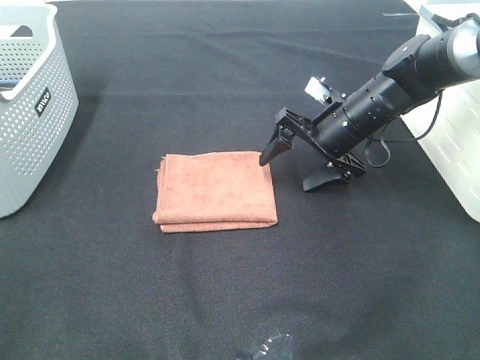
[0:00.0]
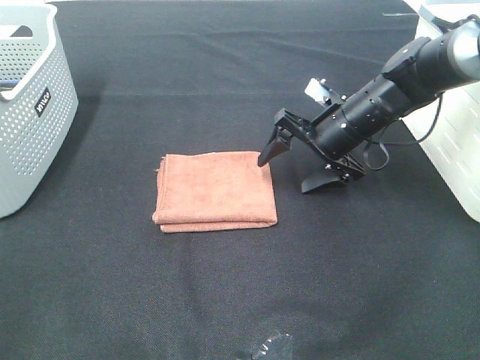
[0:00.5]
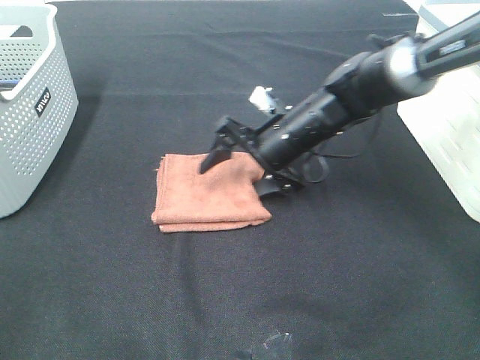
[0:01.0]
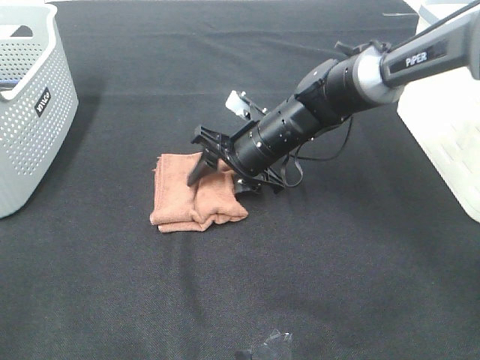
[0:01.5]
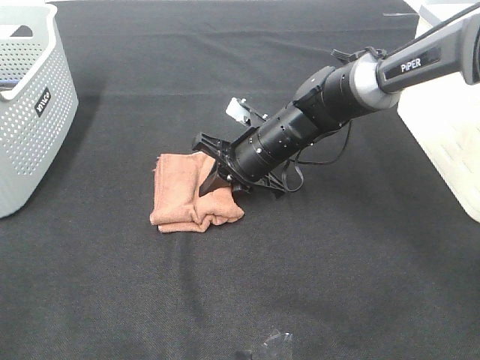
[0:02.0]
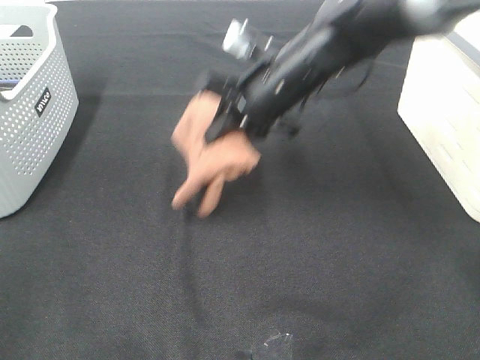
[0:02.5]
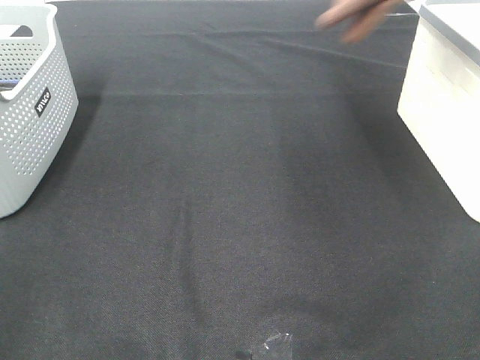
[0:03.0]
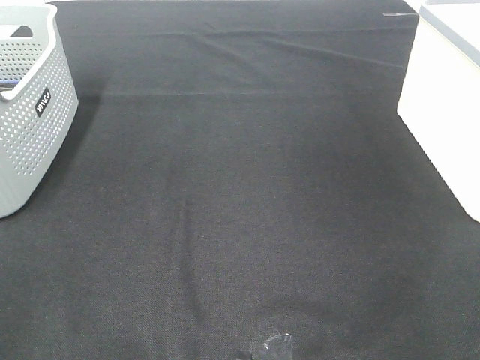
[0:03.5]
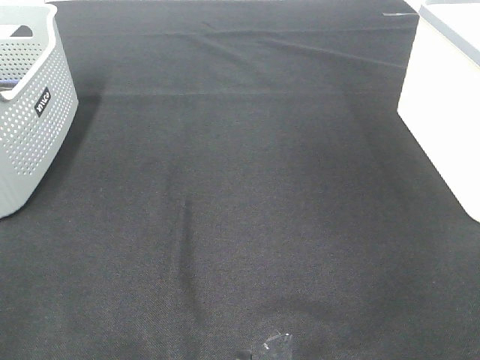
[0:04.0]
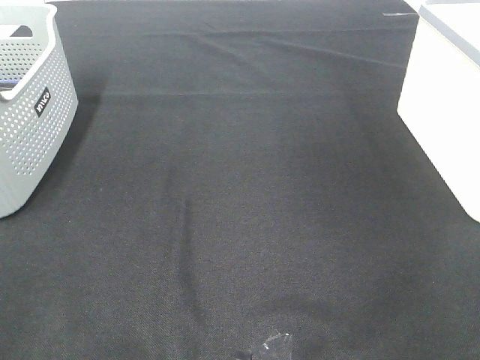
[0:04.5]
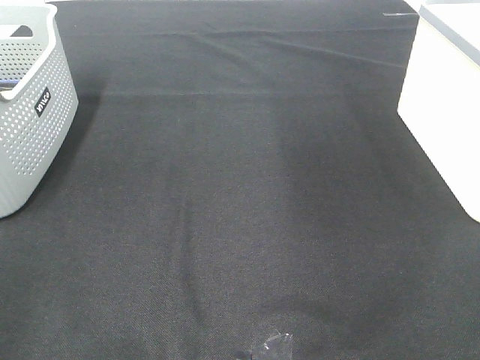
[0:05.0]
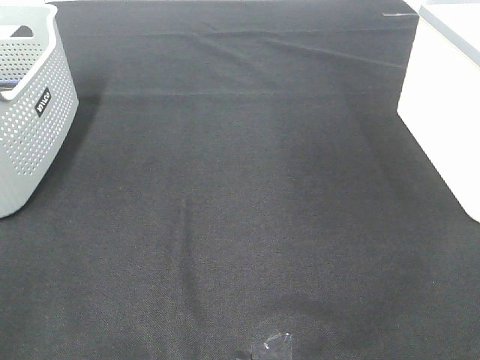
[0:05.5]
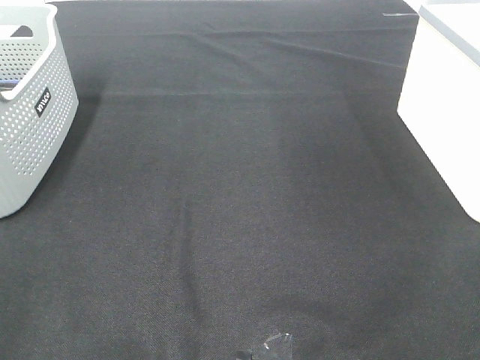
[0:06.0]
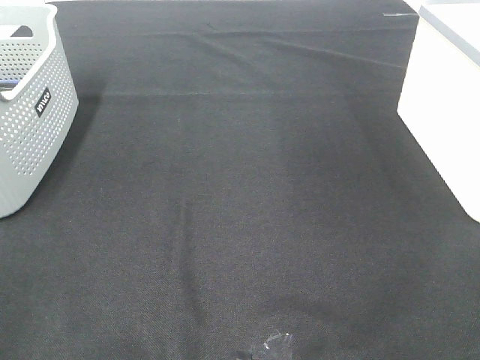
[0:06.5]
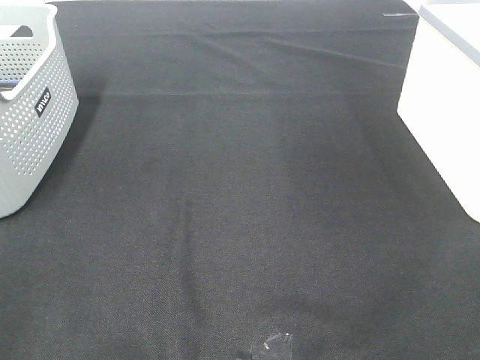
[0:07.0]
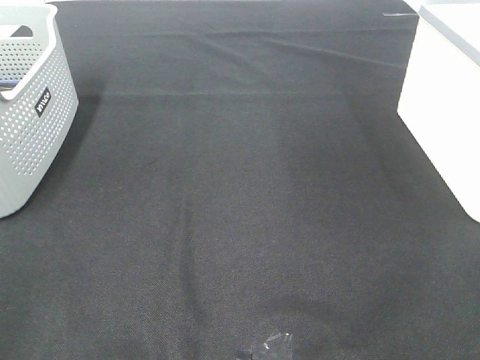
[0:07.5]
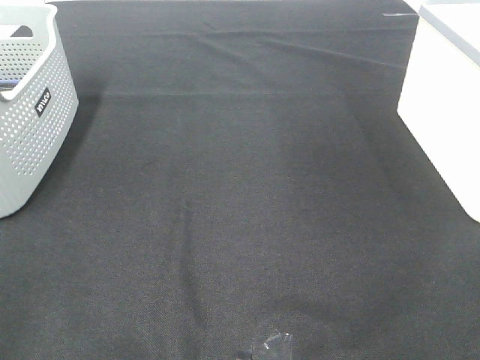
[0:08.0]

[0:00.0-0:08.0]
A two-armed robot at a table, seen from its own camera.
Step, 0:02.0 to 0:04.0: Right hand: place the brown towel in right basket.
0:00.0 to 0:02.0: The right gripper is displaced to the left by roughly 10 cm, and closes up.
0:02.0 to 0:04.0: The right gripper heads to the right and upward, covering some 50 cm.
0:06.0 to 0:08.0: Both grippers stay put.

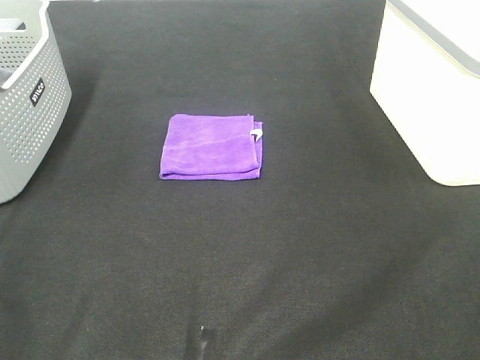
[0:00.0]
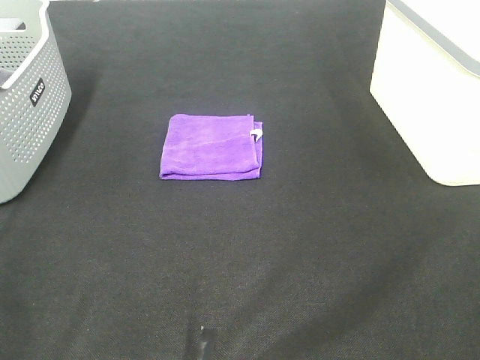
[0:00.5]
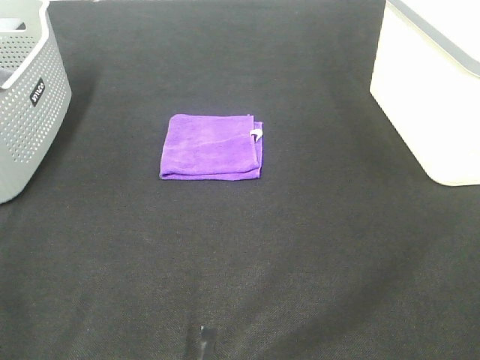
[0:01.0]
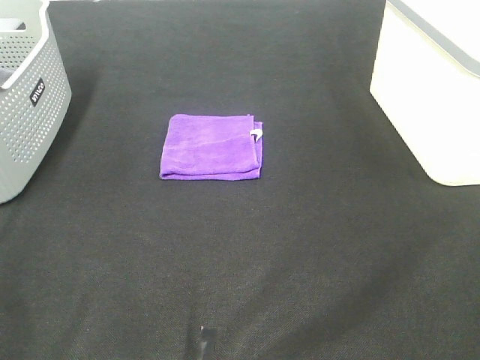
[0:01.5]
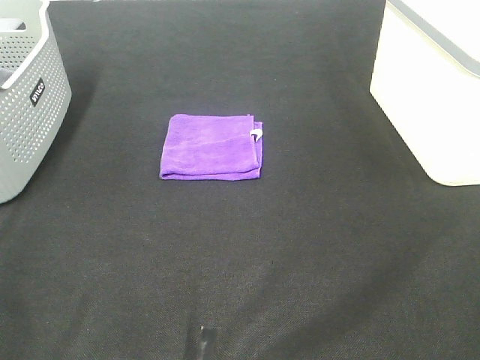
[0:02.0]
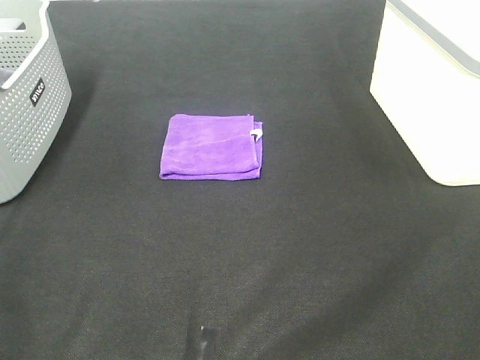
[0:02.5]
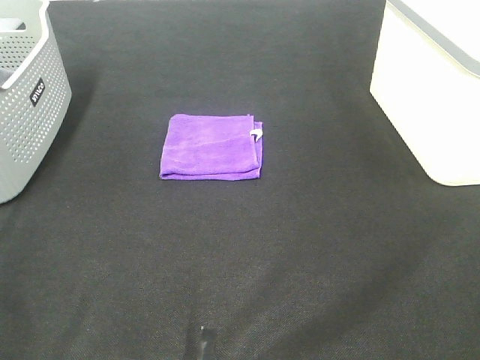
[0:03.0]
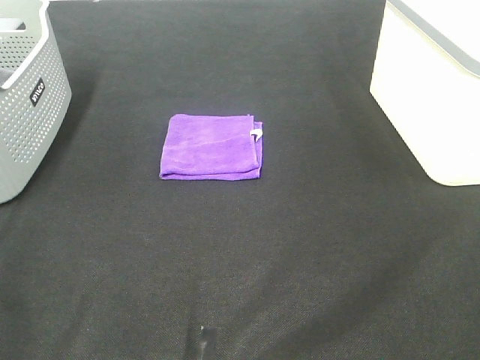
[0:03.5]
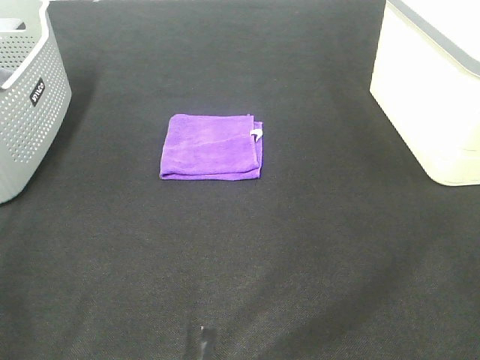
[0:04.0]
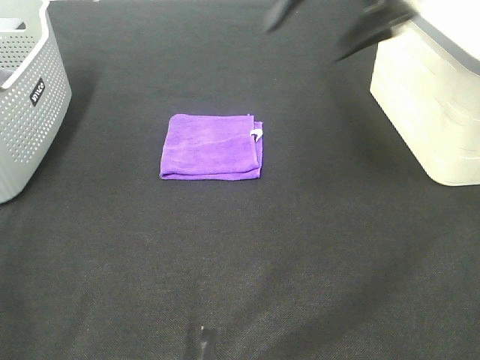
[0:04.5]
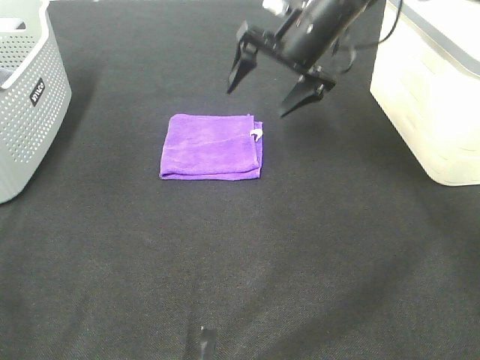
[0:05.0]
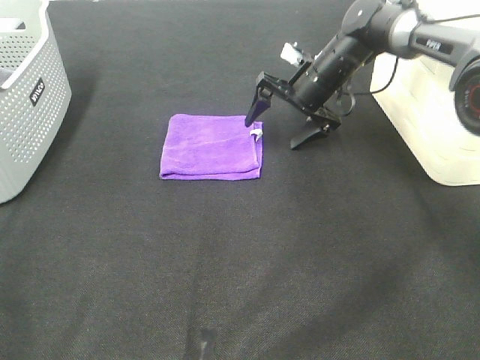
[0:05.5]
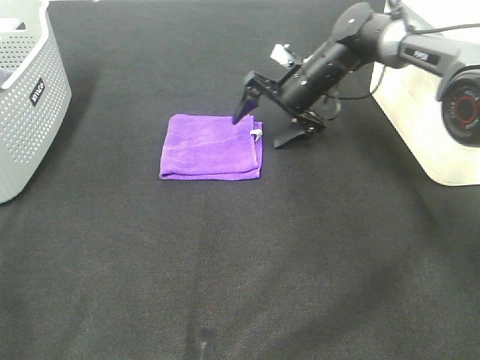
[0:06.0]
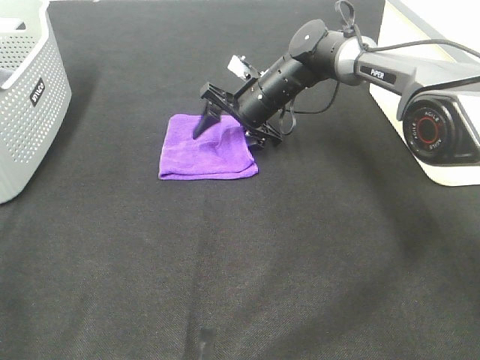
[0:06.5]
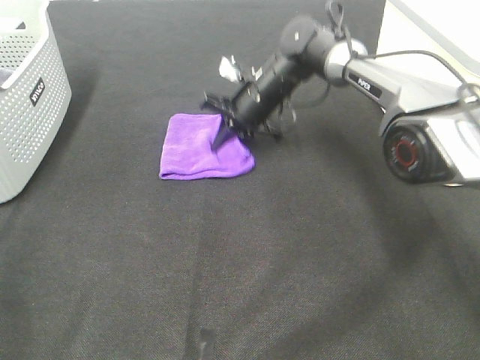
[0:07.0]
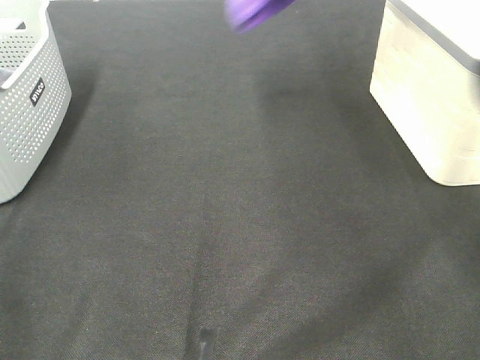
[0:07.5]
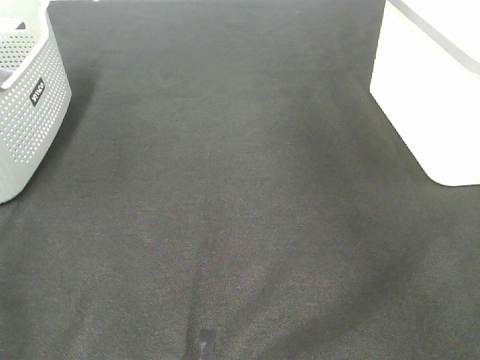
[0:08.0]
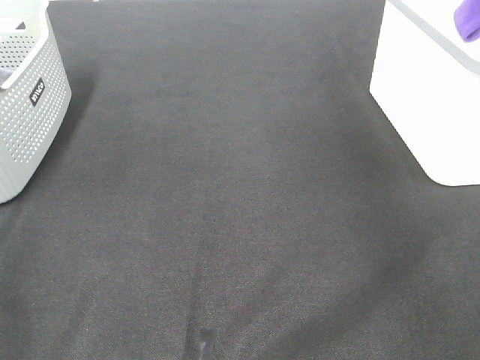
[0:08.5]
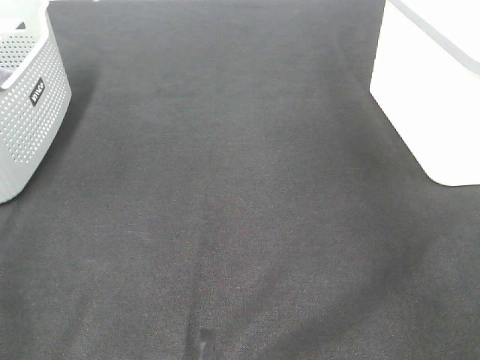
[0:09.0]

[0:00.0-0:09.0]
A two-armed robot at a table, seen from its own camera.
Step, 0:00.0 to 0:06.5: Right hand: grab the folded purple towel.
Step, 0:07.0 to 0:08.5: Right hand: place the purple towel in right basket.
0:00.0 to 0:02.0: Neither gripper changes place.
0:02.0 to 0:04.5: The right gripper goes about 40 cm forward.
0:04.5 to 0:07.0: The right gripper shifts roughly 25 cm downward, forward and to the left, and closes.
0:07.0 to 0:09.0: The right gripper travels to the right and upward by roughly 40 cm, and opens its fingers.

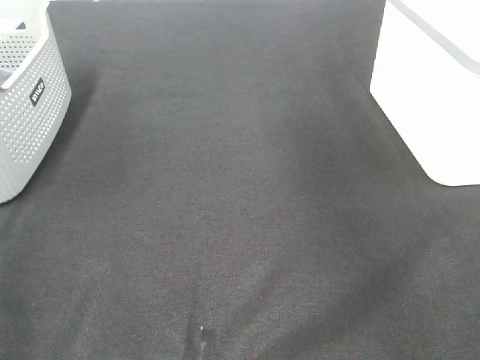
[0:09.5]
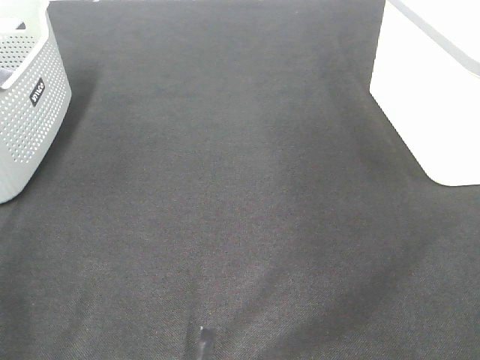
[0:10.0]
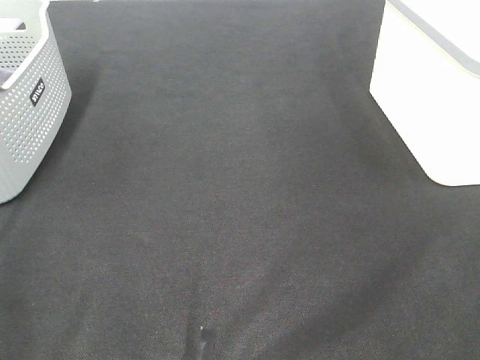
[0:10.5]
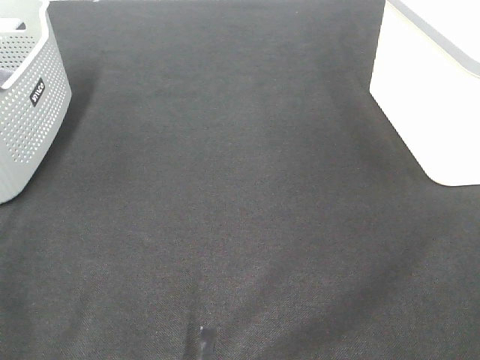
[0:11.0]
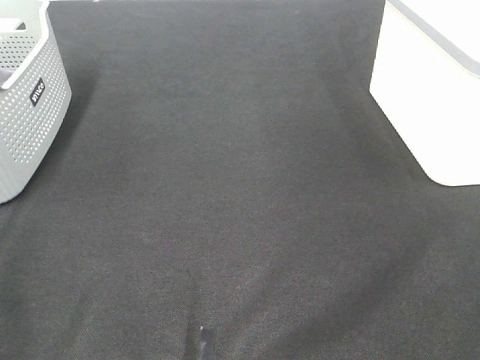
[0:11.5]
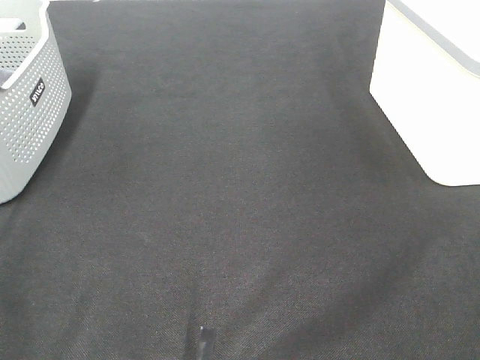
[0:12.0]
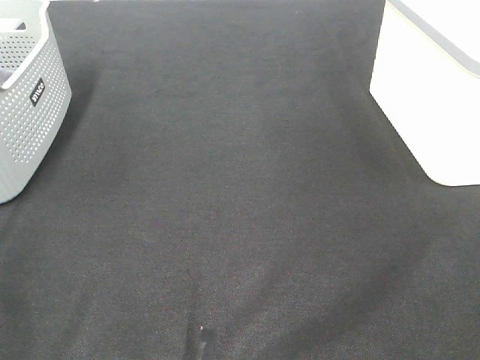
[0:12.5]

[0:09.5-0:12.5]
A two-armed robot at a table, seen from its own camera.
0:11.0 to 0:12.5: The two grippers keep their place.

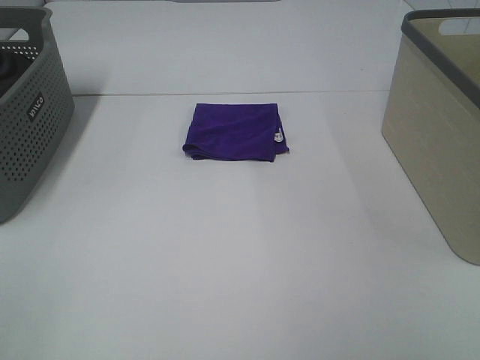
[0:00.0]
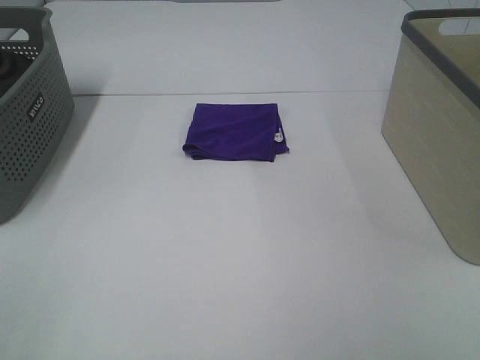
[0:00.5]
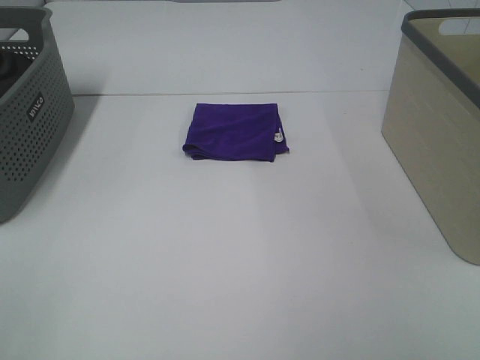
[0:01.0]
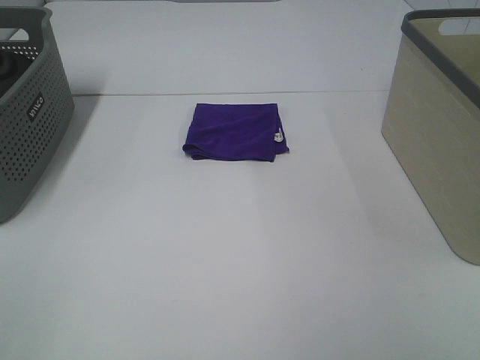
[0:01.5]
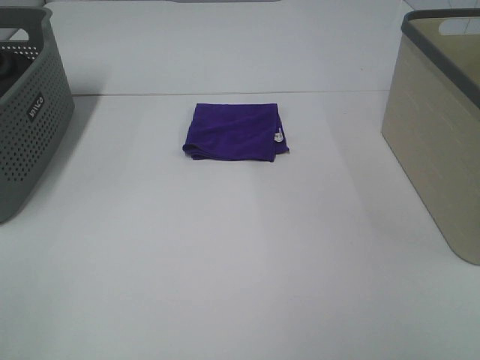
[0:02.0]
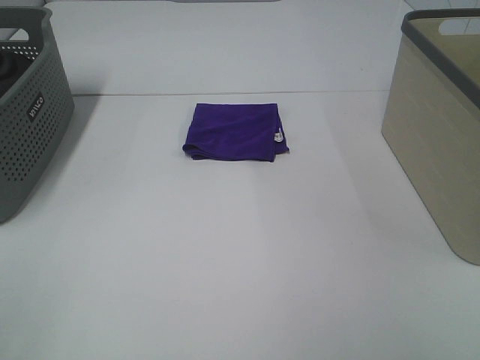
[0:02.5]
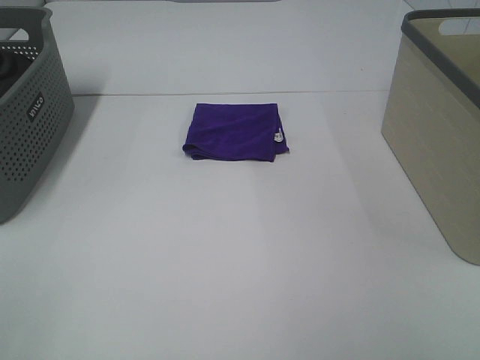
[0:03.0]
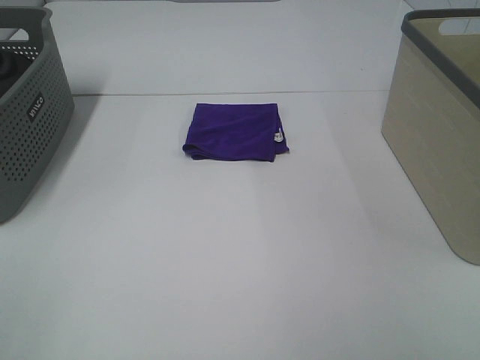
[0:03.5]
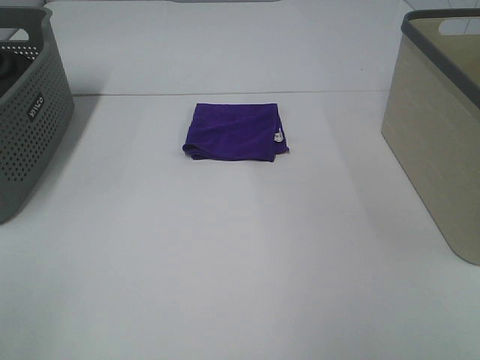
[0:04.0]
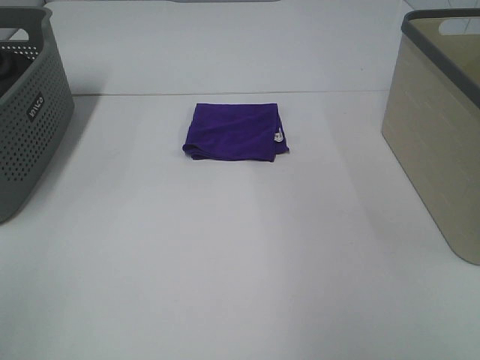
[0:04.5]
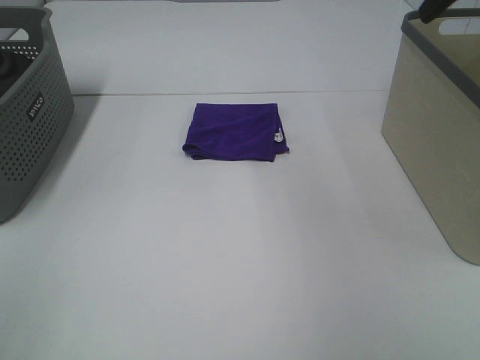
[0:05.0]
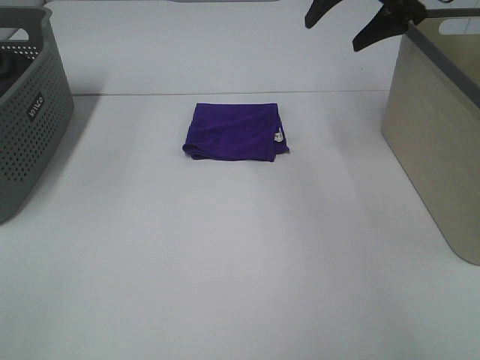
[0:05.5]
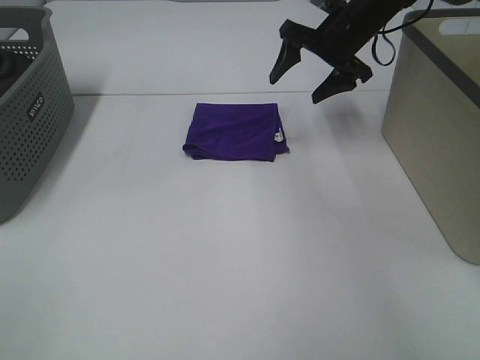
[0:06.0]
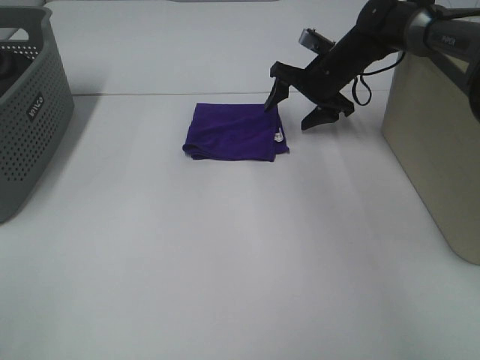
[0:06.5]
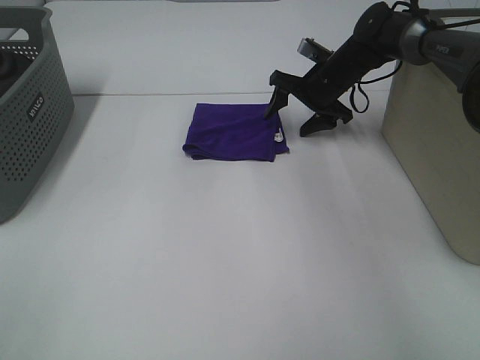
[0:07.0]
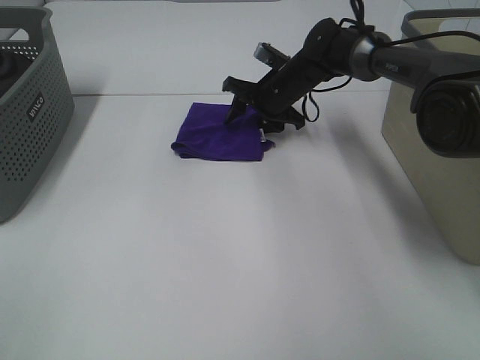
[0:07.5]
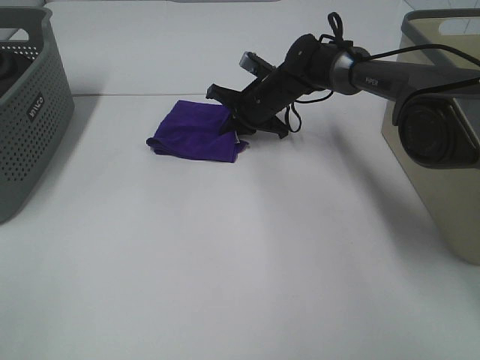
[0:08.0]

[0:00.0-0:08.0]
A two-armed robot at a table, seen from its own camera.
Step, 0:00.0 to 0:07.5: Right hand: grab the folded purple towel.
0:00.0 to 0:02.0: Both grippers stay put.
0:04.0 to 0:06.0: The right gripper goes about 40 cm forward.
0:06.0 to 0:08.0: The right gripper shifts approximately 15 cm downward and to the left, and closes its fingers.
